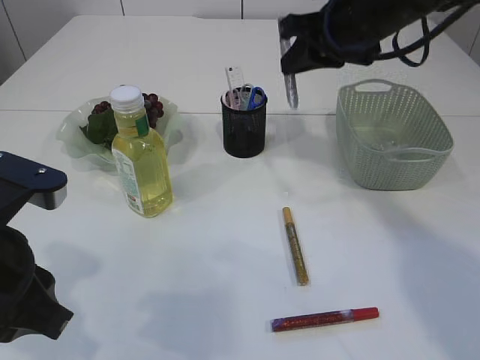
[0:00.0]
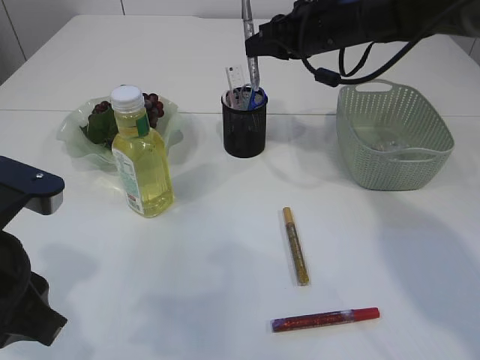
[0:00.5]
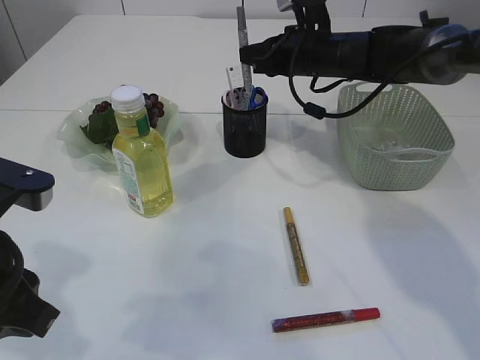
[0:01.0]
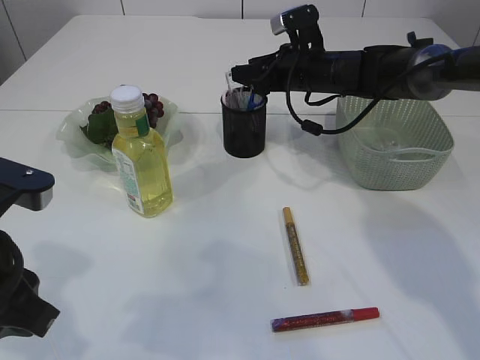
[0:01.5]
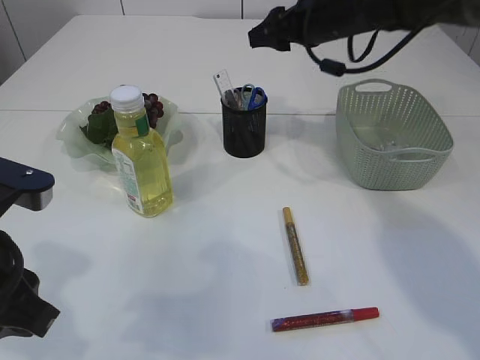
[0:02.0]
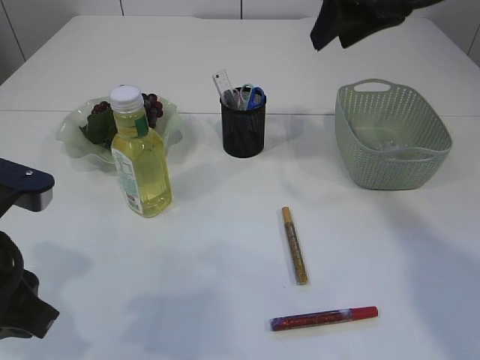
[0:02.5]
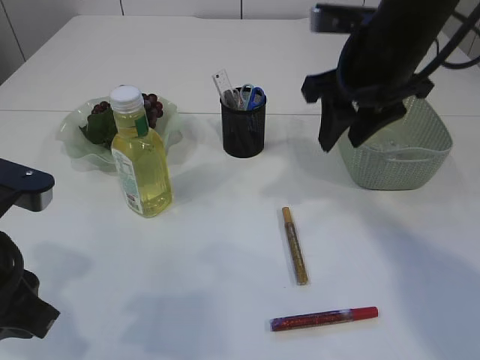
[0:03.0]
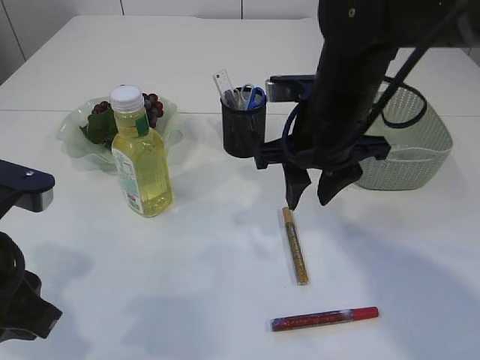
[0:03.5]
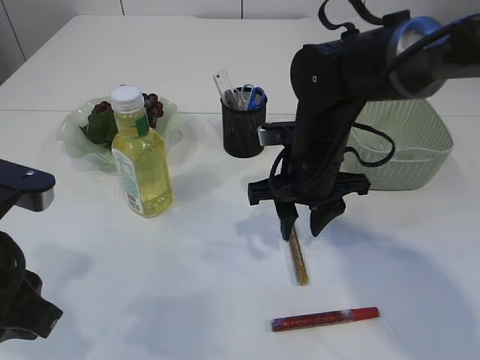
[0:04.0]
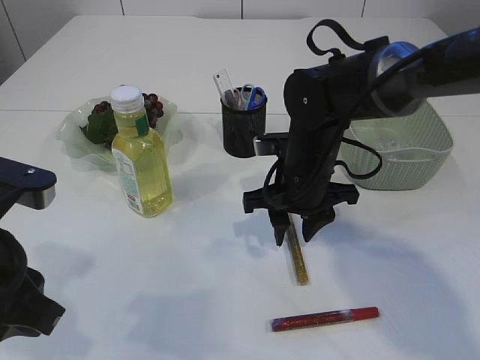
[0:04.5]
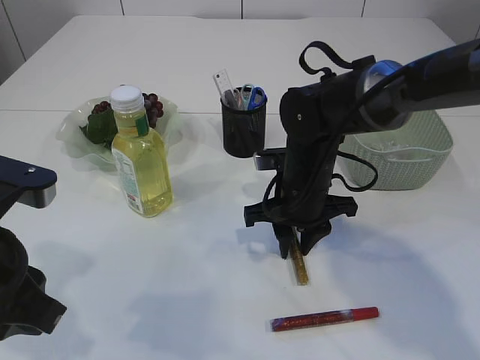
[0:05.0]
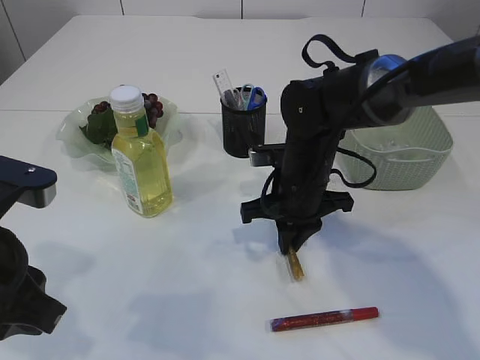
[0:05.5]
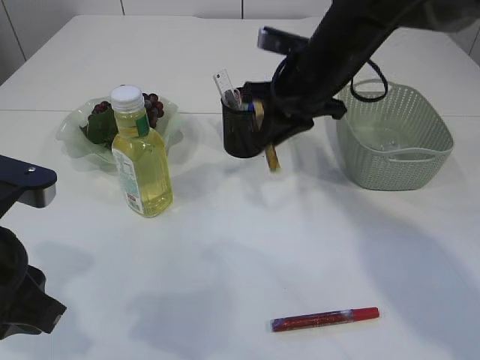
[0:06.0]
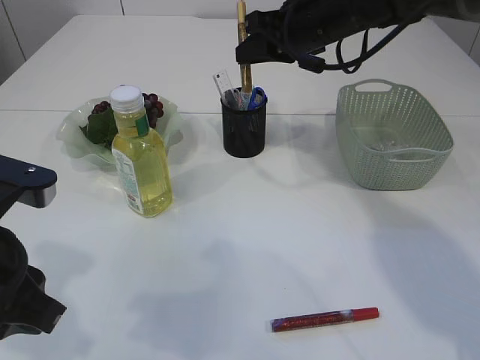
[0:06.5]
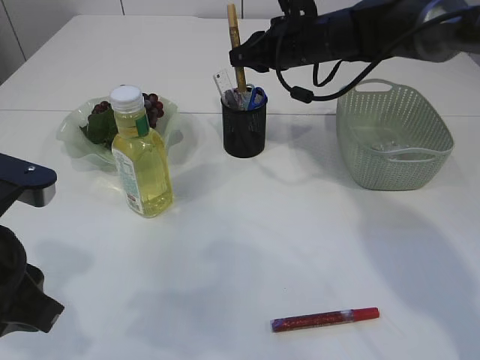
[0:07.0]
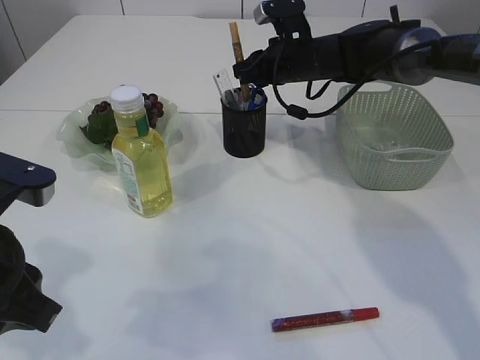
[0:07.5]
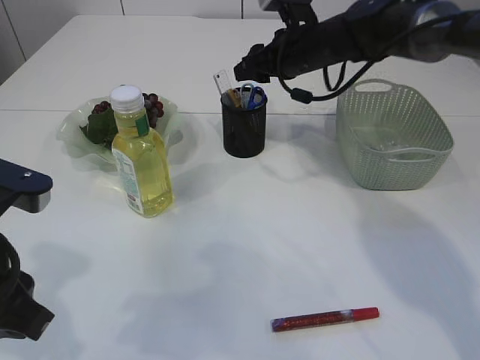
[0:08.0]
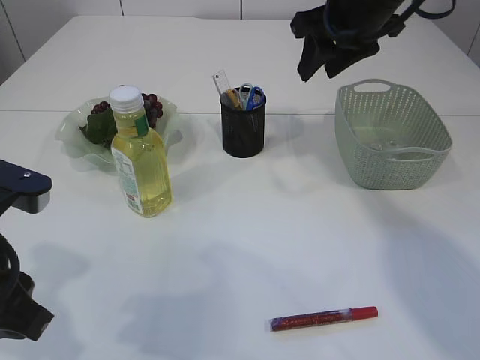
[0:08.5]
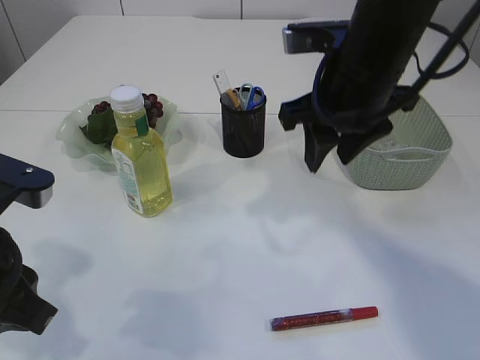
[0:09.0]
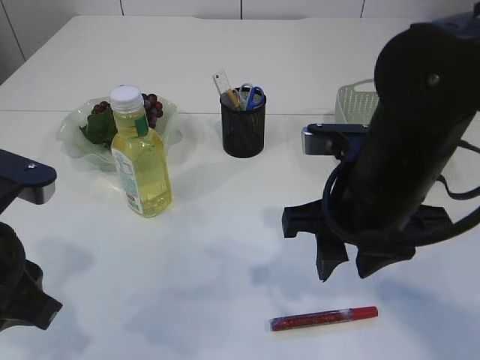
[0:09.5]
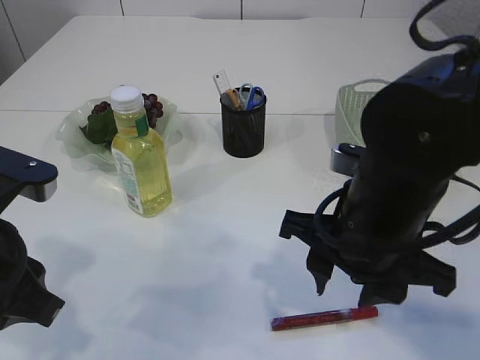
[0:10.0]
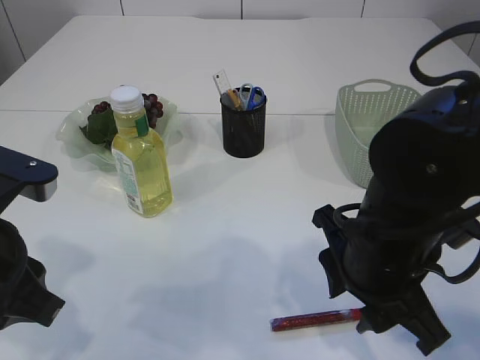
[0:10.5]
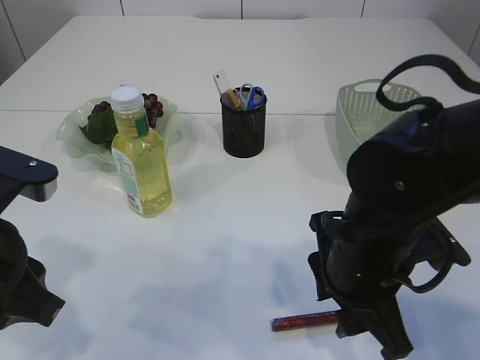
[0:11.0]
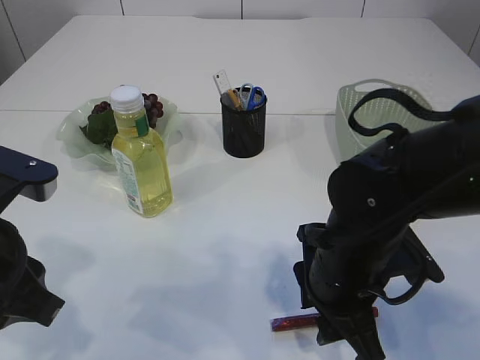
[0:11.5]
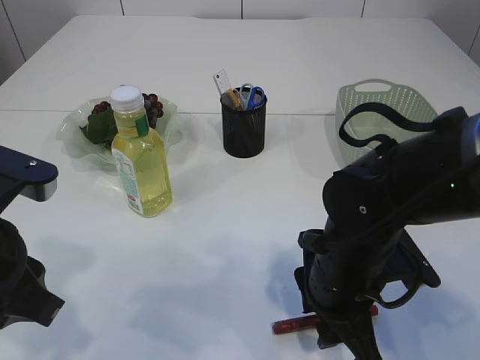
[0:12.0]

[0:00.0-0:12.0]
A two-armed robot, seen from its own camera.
Step, 0:00.0 to 0:01.5: place the silver glue into the pen holder.
Step, 0:02.0 to 0:05.5: pick up the yellow glue.
Step, 0:06.0 to 0:08.0: place the yellow glue into the pen holder.
0:00.0 to 0:02.0: The right gripper moves forward, approximately 5 cm, moves approximately 10 cm downward and comes back, and opens its fingers.
0:02.0 to 0:04.0: The right gripper shifts approximately 15 cm backward and downward.
0:04.0 to 0:06.0: The right gripper is displaced forward and upward by approximately 10 cm, and closes its fingers.
0:06.0 to 0:08.0: The right gripper moves forward, about 10 cm, and opens its fingers.
0:08.0 to 0:10.0: The right gripper goes some 30 cm backward.
0:10.0 to 0:12.0: The right gripper is displaced downward by roughly 10 cm.

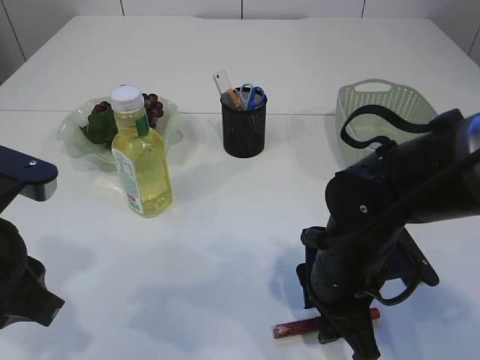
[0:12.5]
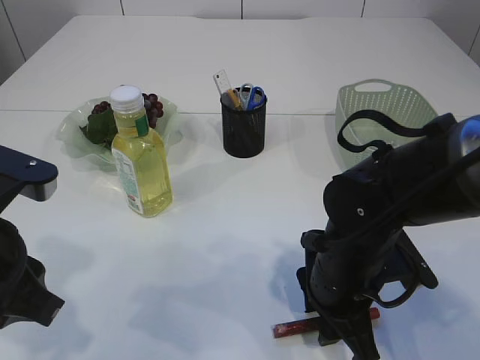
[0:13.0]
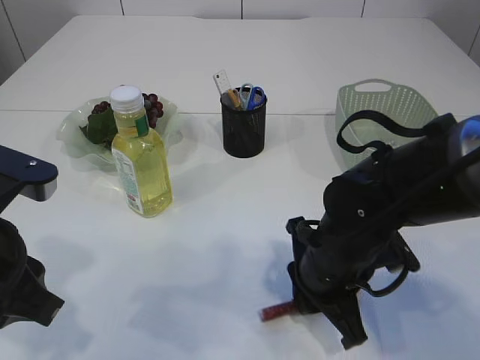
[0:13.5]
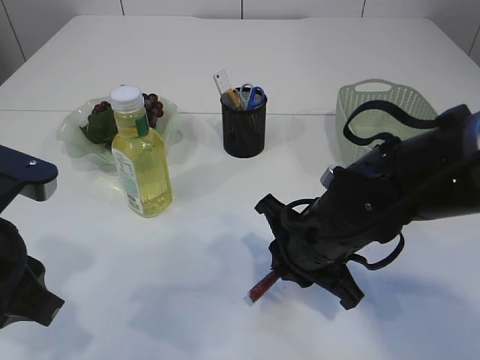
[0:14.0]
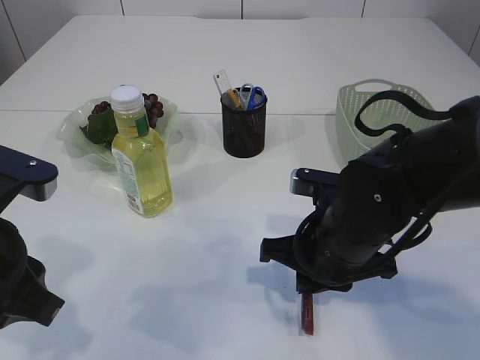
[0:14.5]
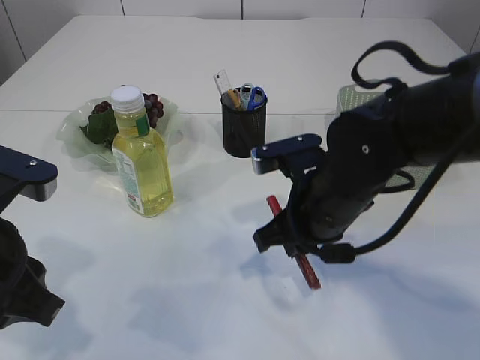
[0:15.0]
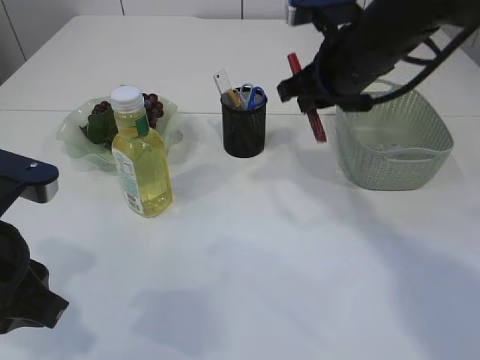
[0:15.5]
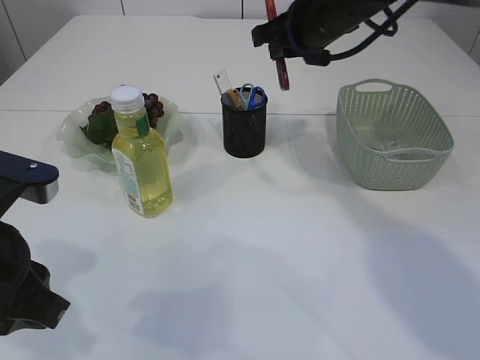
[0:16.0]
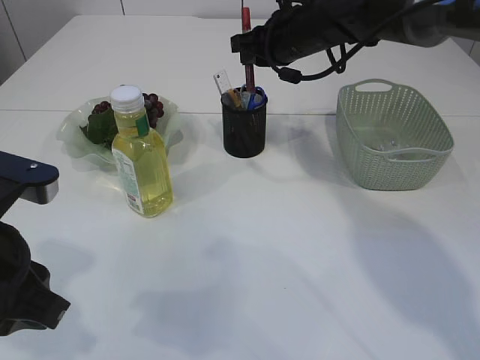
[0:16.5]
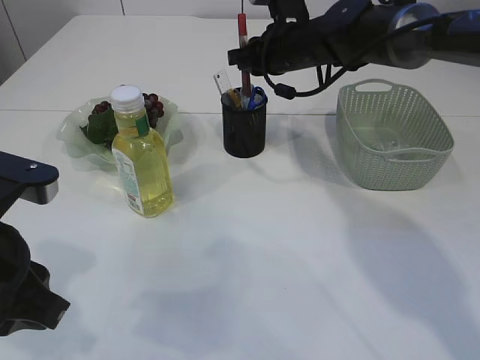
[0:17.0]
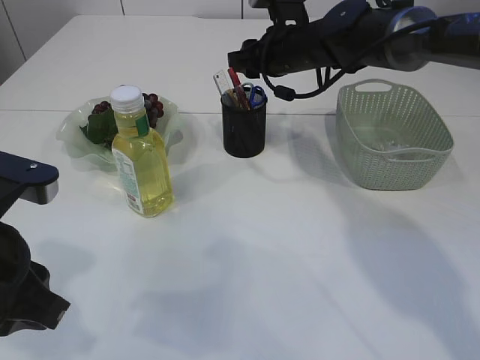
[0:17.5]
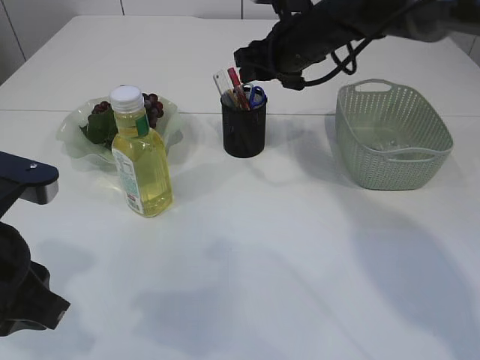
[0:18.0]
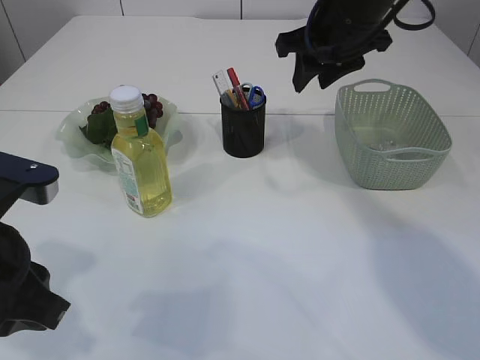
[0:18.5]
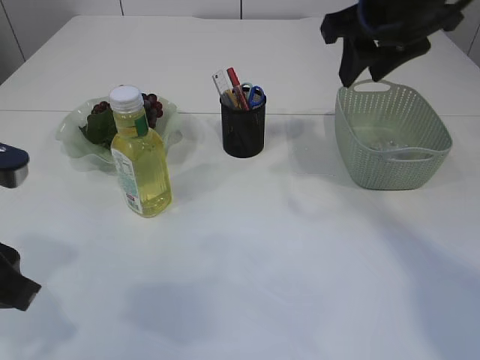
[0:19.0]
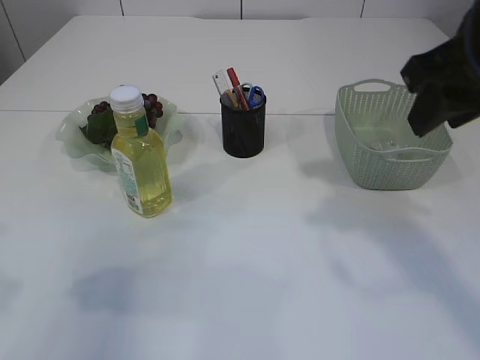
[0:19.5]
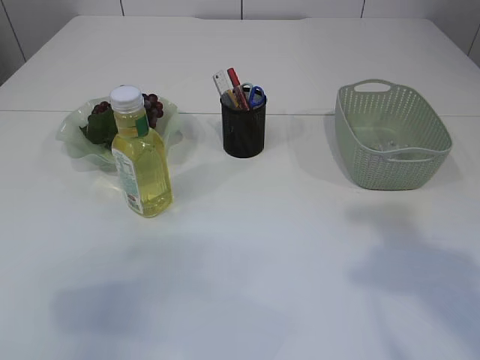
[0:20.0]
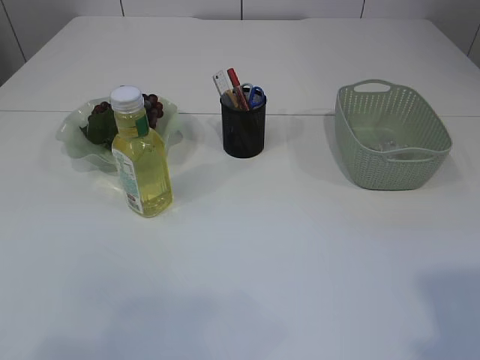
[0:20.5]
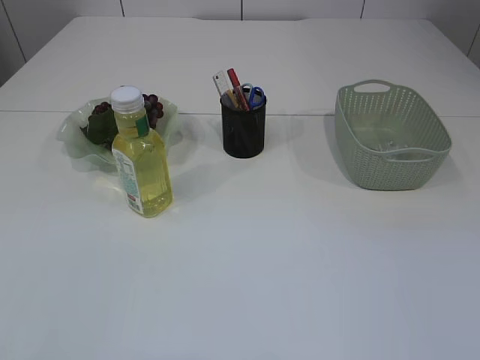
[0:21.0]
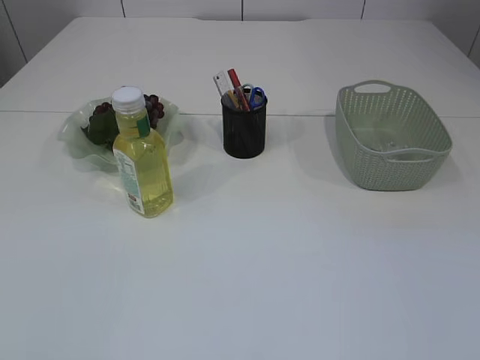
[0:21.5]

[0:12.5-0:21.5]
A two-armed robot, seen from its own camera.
Step, 0:12.5 to 0:14.5: pick up the red glue.
Step, 0:15.0 to 0:17.0: place the red glue into the pen holder.
0:12.5 to 0:14.5: The right gripper closes its fingers.
0:14.5 to 0:17.0: The right gripper heads forward, covering about 25 cm.
0:17.0 to 0:19.5: The left gripper moves to the left, approximately 10 cm; the right gripper shifts approximately 30 cm backward, upward and to the right, and opens its fingers.
0:19.5 to 0:21.5: The two grippers go approximately 25 cm backward. The left gripper opens its fingers.

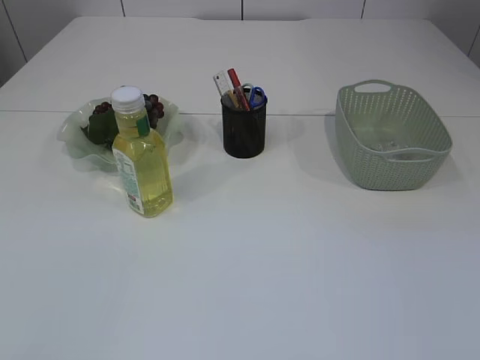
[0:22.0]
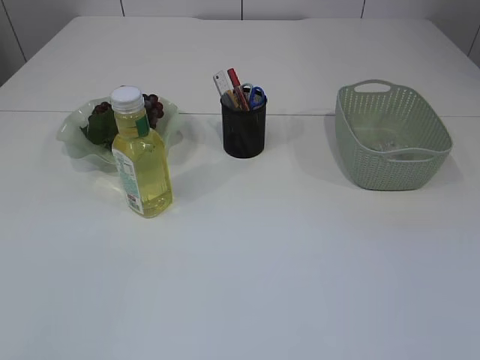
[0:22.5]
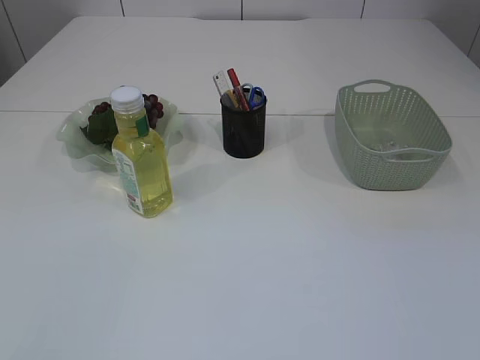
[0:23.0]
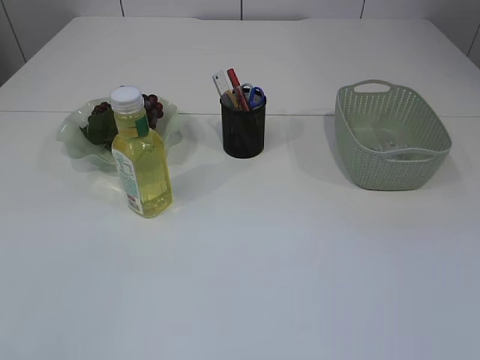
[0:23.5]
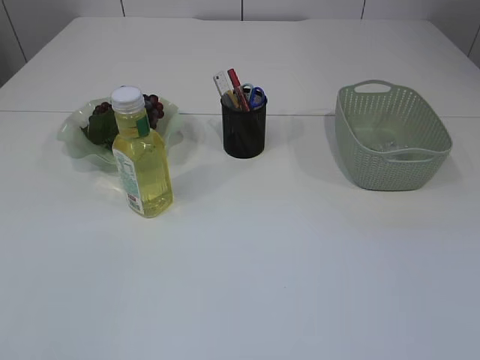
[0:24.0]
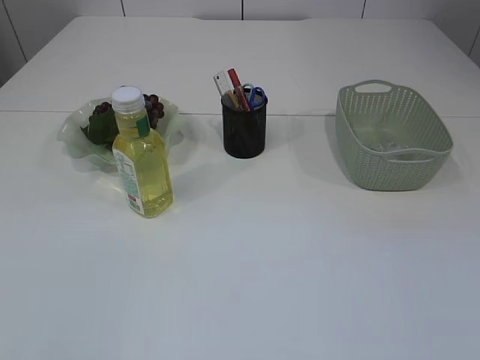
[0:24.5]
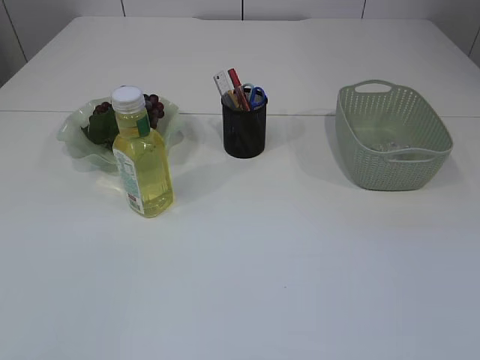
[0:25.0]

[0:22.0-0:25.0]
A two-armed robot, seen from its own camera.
0:23.5 to 0:25.0: Both grippers stay put.
